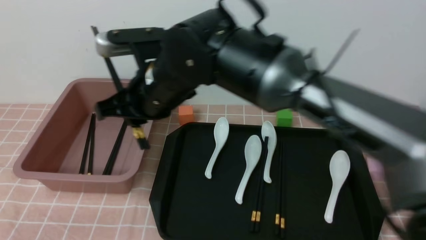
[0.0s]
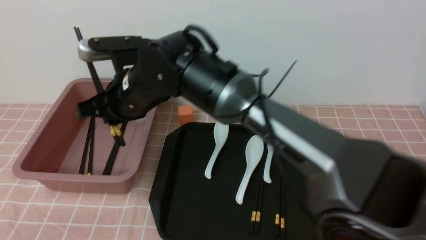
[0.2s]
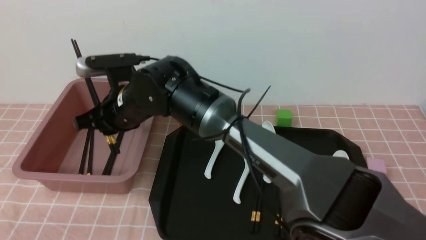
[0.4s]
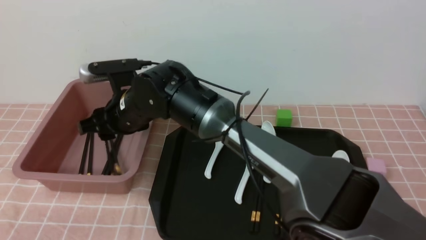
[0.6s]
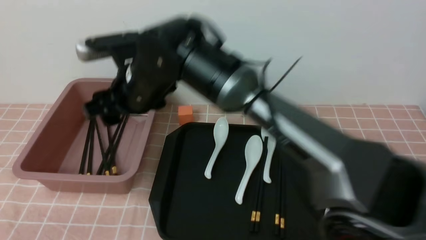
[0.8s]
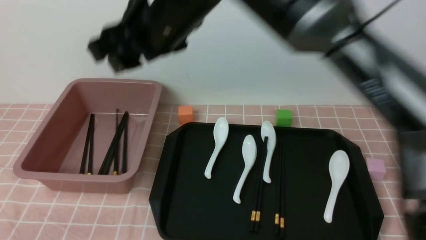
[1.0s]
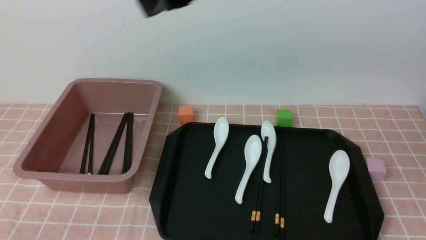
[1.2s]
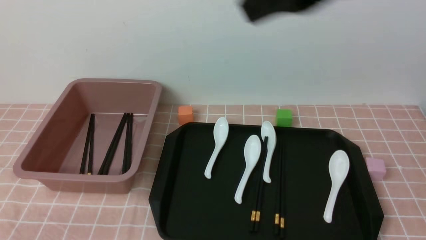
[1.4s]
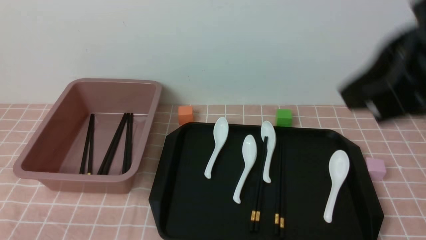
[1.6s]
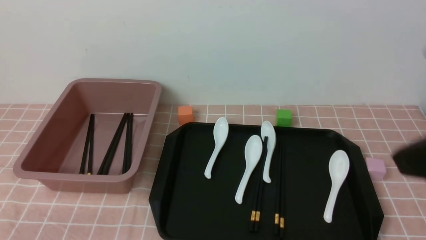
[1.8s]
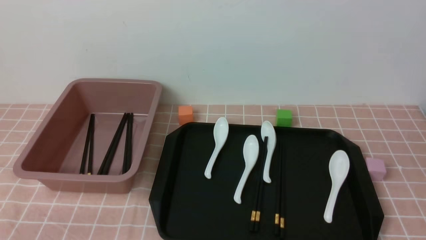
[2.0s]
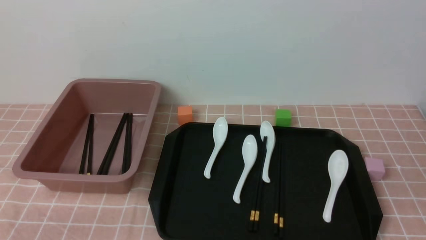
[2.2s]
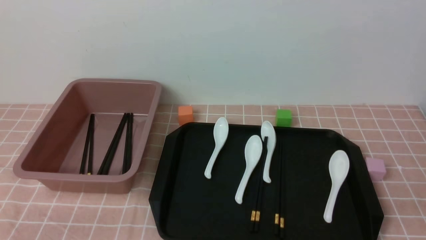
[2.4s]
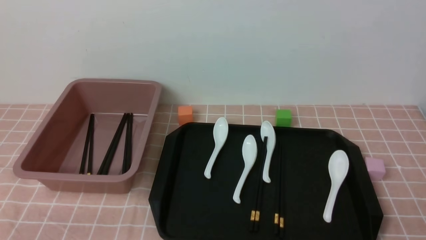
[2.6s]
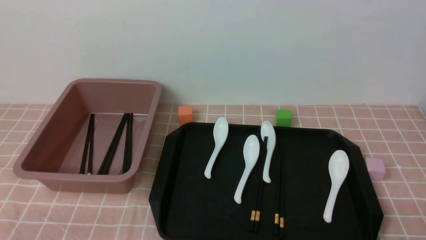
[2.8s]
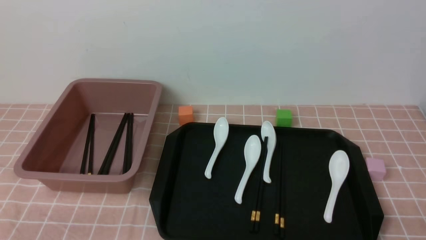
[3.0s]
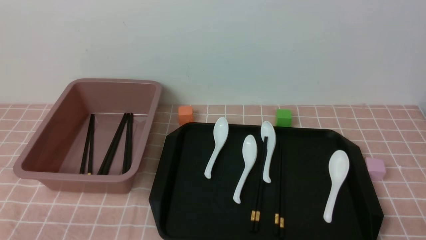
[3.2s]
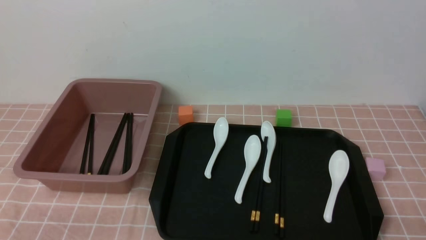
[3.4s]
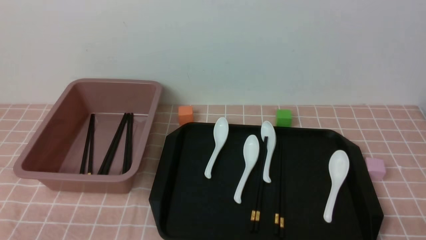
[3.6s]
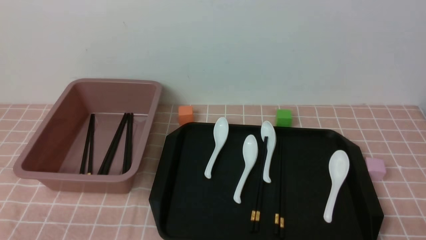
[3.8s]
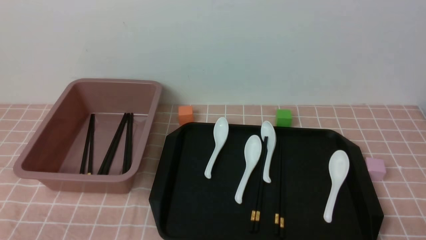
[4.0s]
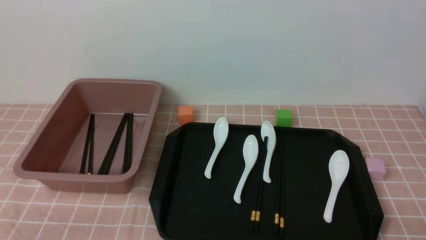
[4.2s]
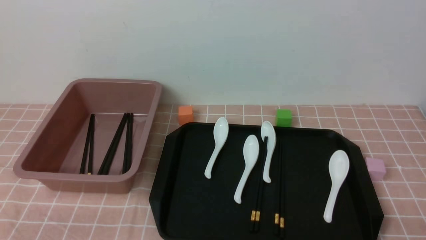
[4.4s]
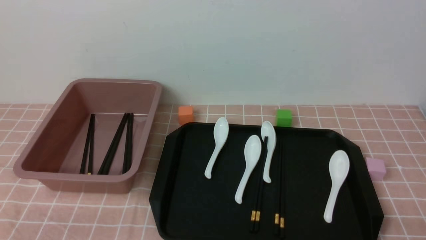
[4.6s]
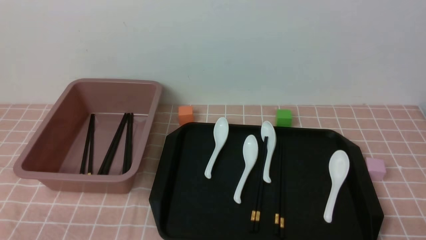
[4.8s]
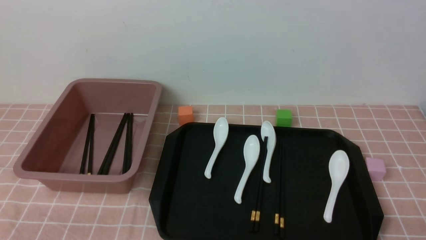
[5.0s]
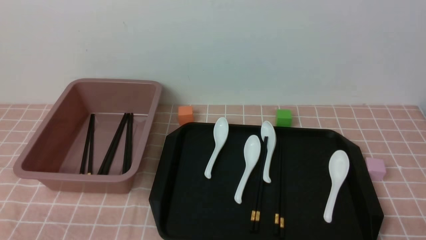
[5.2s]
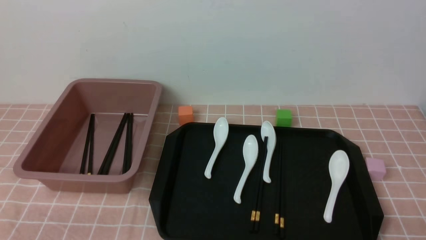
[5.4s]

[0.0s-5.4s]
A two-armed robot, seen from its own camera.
Step, 0.0s to 0.8s: use the right arm to put the chopsticks into the lunch box.
0.0s to 1.4s: The right gripper goes roughly 30 cm upward, to the right and backward, and opens, then closes once more.
1.4s to 2.8s: The right gripper travels downward, to the right and backward by some 40 cm.
4.0s to 5.4s: Both grippers stay about where they are.
